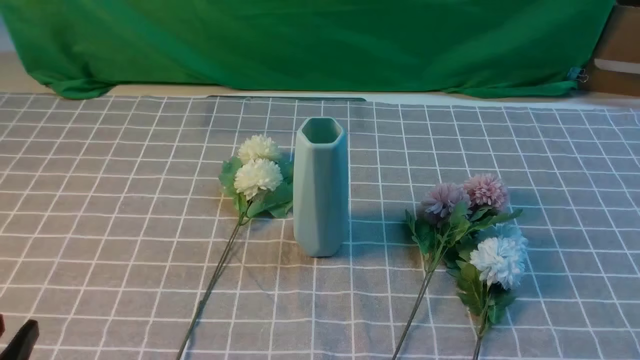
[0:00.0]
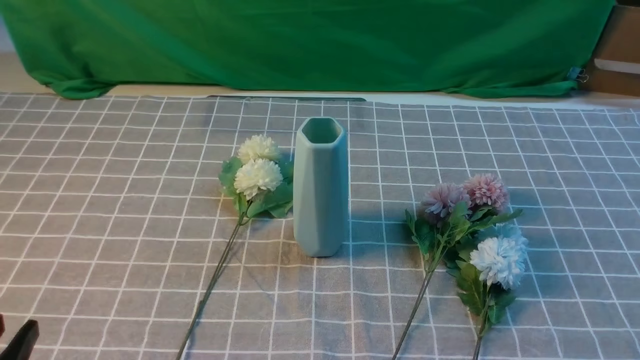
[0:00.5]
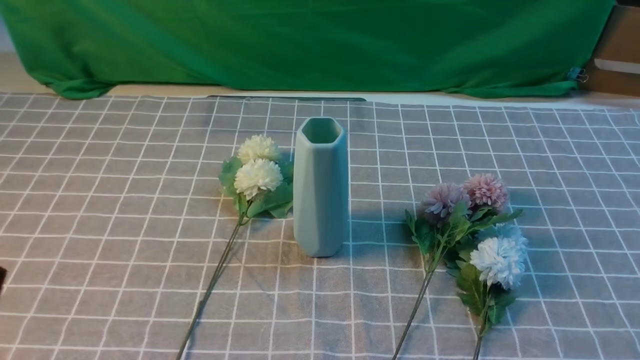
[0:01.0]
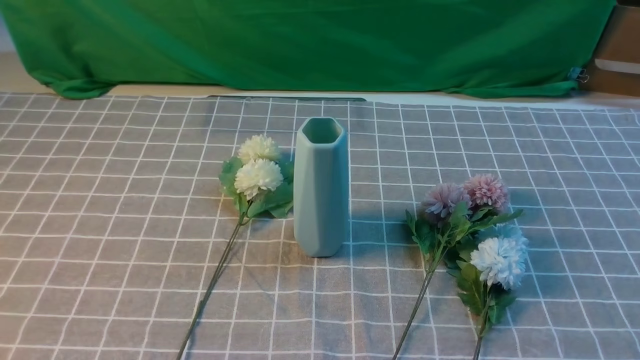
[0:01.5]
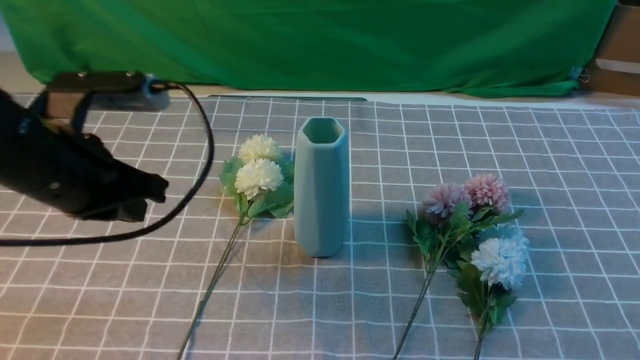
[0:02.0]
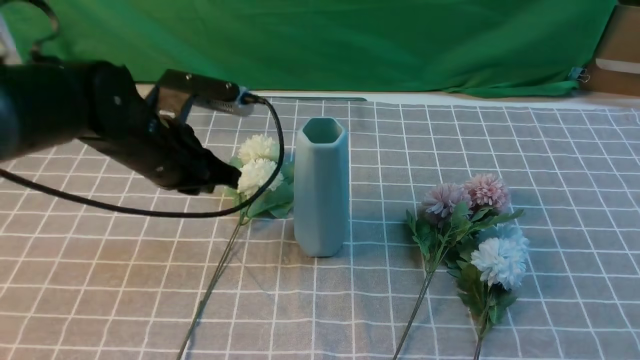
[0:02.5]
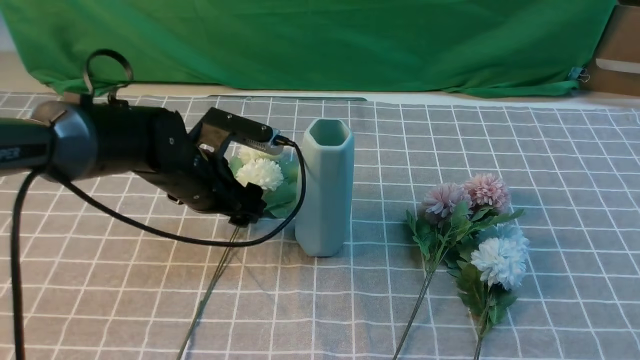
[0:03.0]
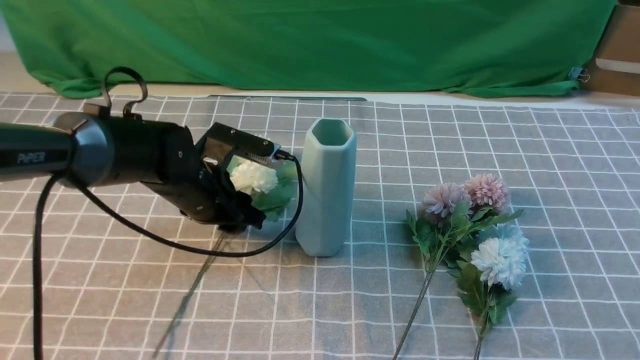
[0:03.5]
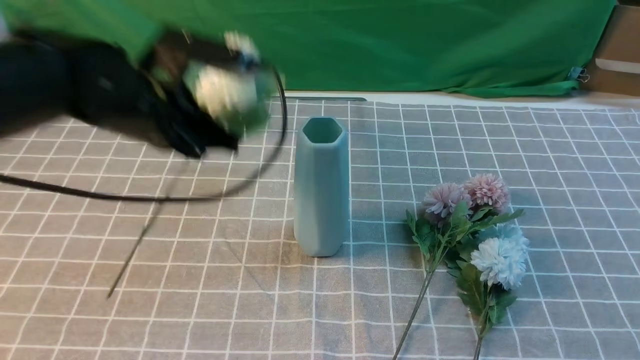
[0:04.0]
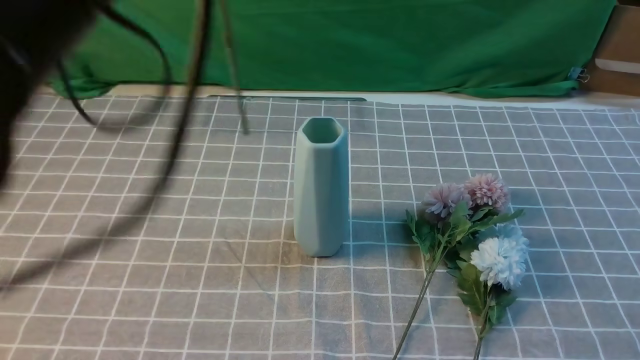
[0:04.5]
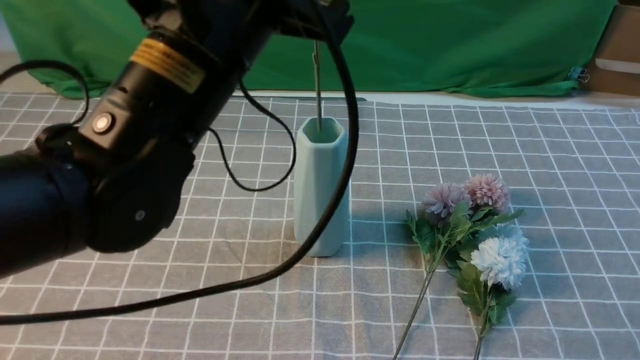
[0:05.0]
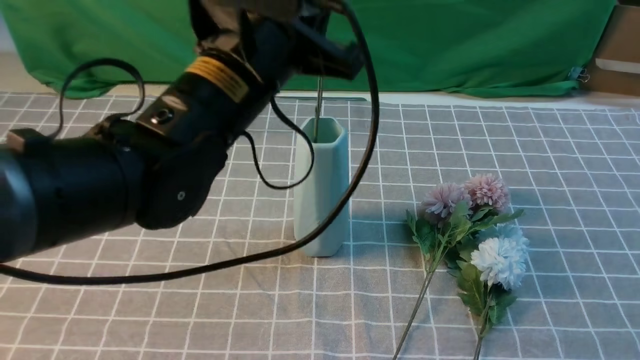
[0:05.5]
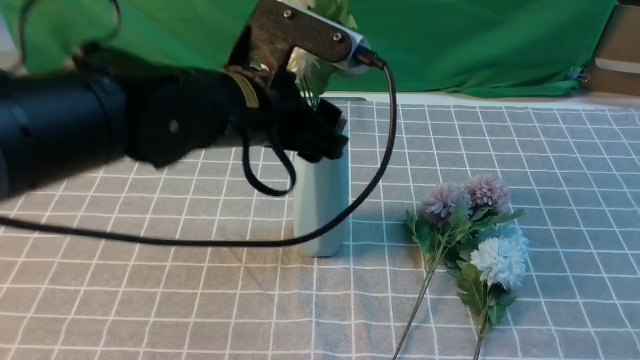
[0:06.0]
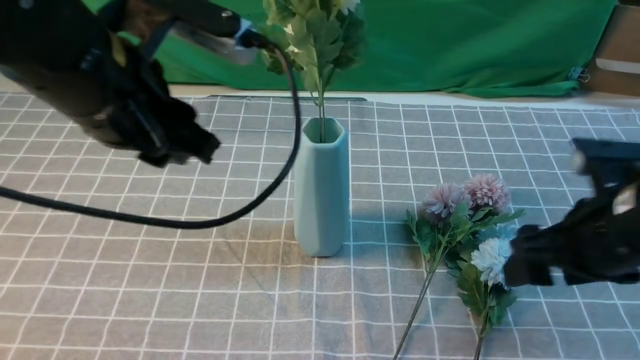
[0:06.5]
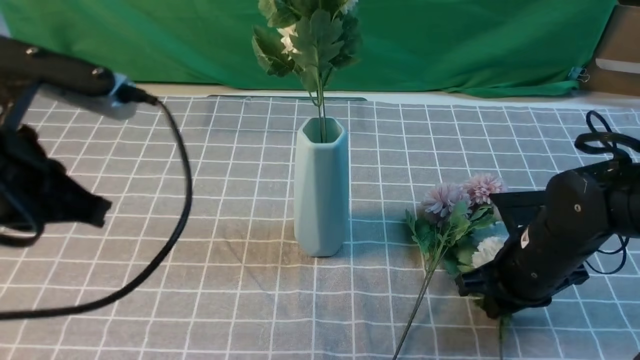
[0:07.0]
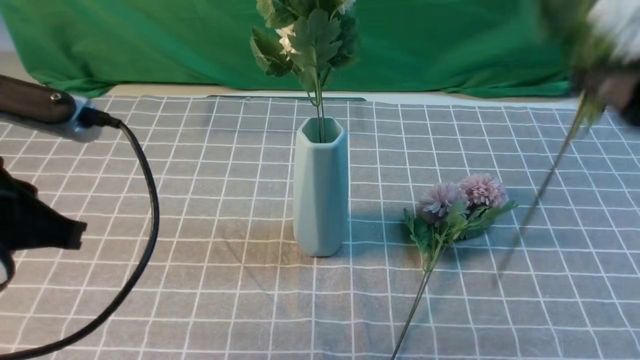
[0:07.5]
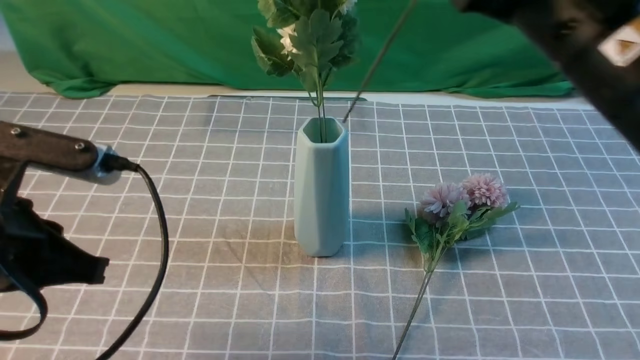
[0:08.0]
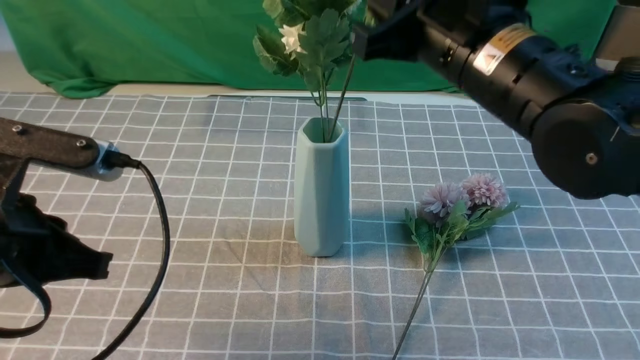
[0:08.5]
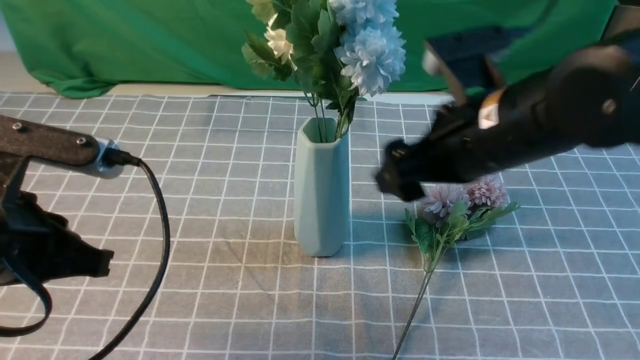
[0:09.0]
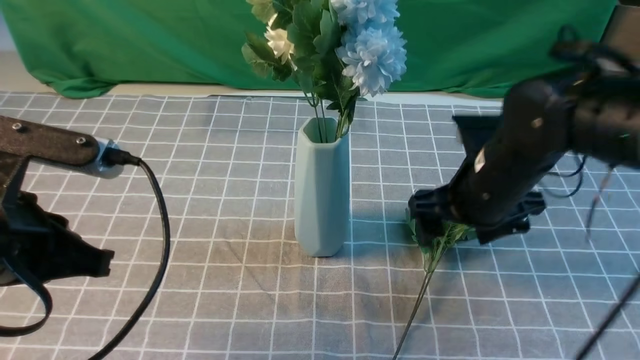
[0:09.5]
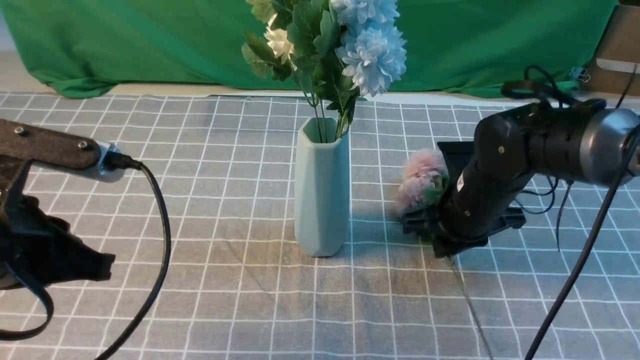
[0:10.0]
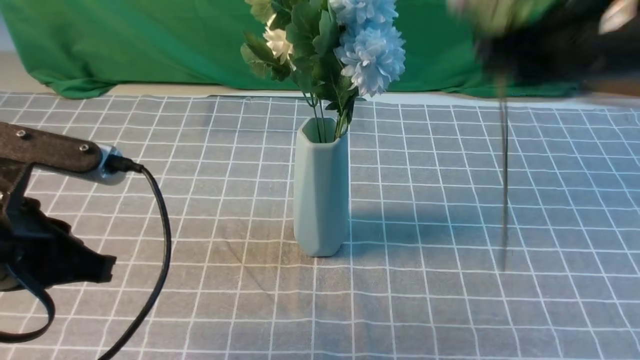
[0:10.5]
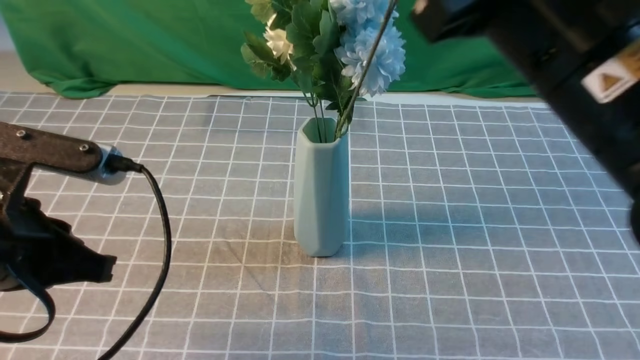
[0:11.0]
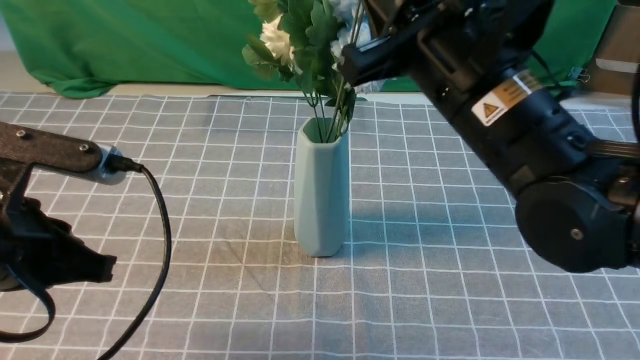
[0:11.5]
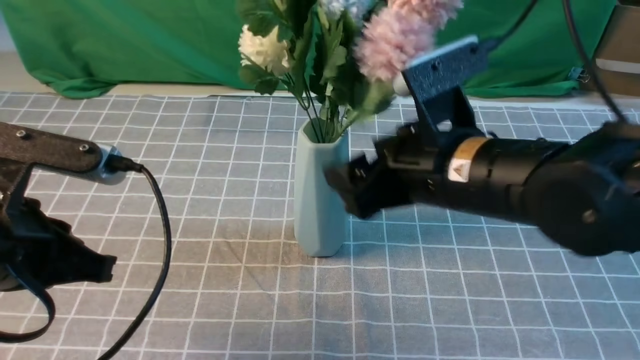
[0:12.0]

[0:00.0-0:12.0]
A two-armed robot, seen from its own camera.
Task of the whole recording: insert the flowers into the vase on the table with the grey tablecloth.
Step, 0:00.0 to 0:03.5: use the left arm to grab a bunch of fresh flowers.
Step, 0:04.0 to 0:06.0: use the left arm to insert the flowers into the vase.
Step, 0:06.5 to 0:07.0: use the right arm to grab a bunch of fresh flowers.
Step, 0:07.5 to 0:08.5: use the right arm to insert the flowers into the vase.
Step, 0:09.0 to 0:09.5: use the right arm to grab a bunch of fresh flowers.
Step, 0:10.5 to 0:12.0: use the right arm to insert the flowers into the vase.
0:00.0 to 0:02.0: The right gripper heads upward, covering some 10 cm. Meanwhile the left gripper shifts approximately 25 cm forward and upward, and closes up.
0:02.0 to 0:04.0: The left gripper shifts some 5 cm forward, goes downward and returns, about 15 cm each way, and opens and closes again. Meanwhile the right gripper moves upward, some 10 cm.
0:04.0 to 0:06.0: The left gripper shifts approximately 10 cm to the right, goes upward and returns, approximately 10 cm each way, and opens its fingers.
0:06.0 to 0:08.0: The right gripper travels to the left and forward by some 20 cm, reaches some 15 cm downward, then returns, and opens, then closes once more, while the left gripper is displaced to the left and backward by some 20 cm, and closes.
0:08.0 to 0:10.0: The right gripper shifts approximately 25 cm downward and forward, and opens, then closes once more.
0:10.0 to 0:12.0: The right gripper goes about 15 cm upward and backward, and opens up.

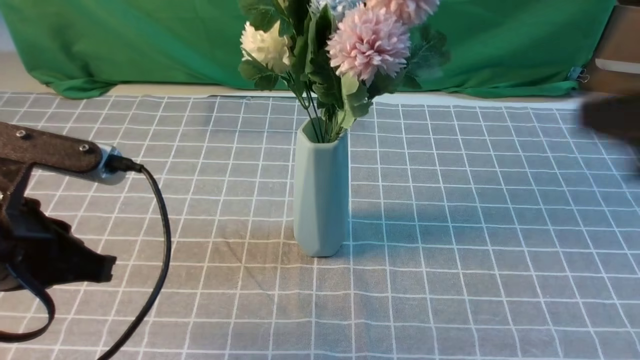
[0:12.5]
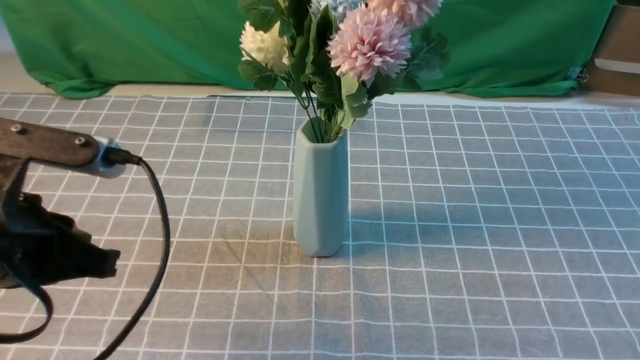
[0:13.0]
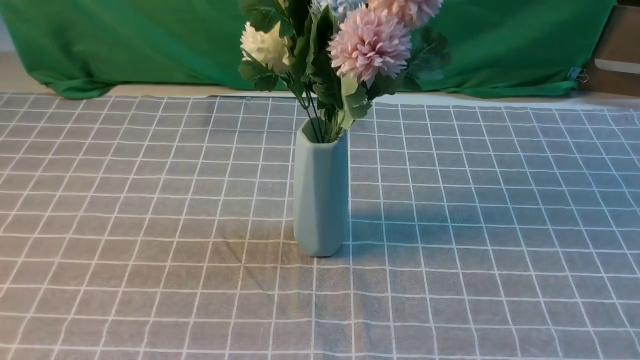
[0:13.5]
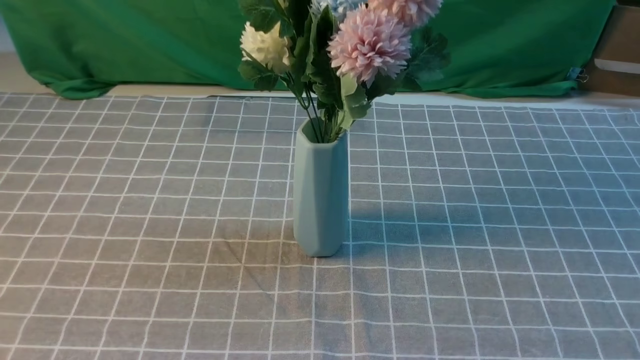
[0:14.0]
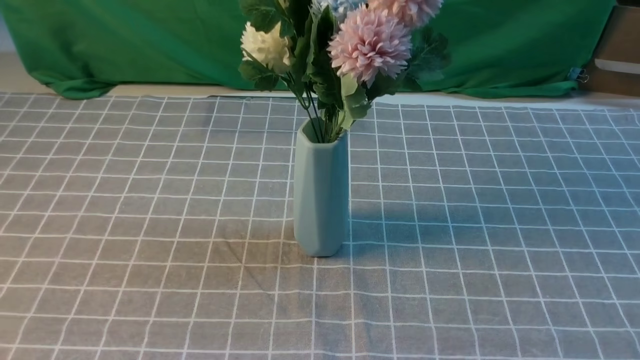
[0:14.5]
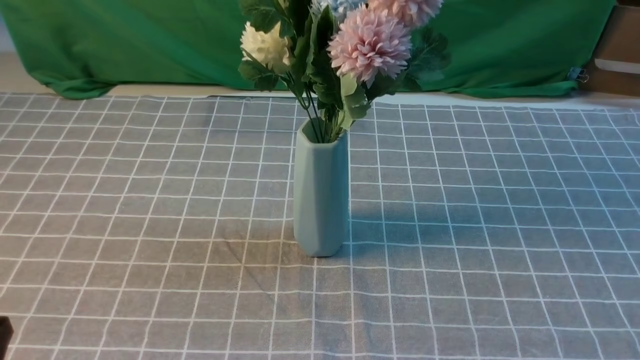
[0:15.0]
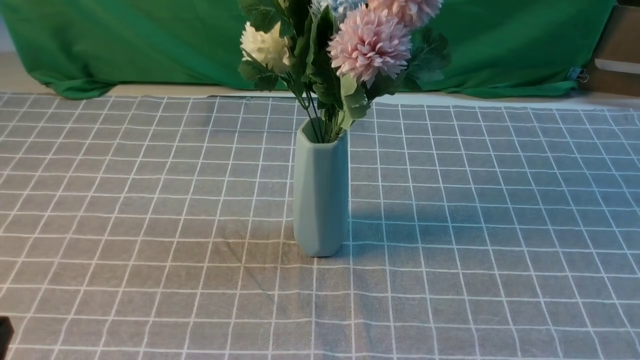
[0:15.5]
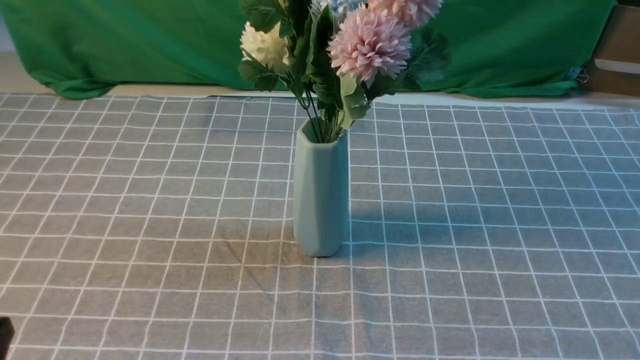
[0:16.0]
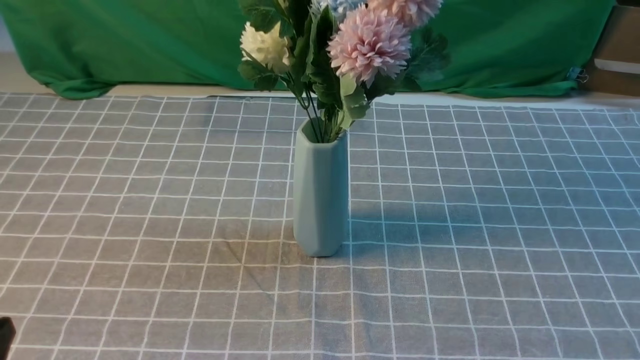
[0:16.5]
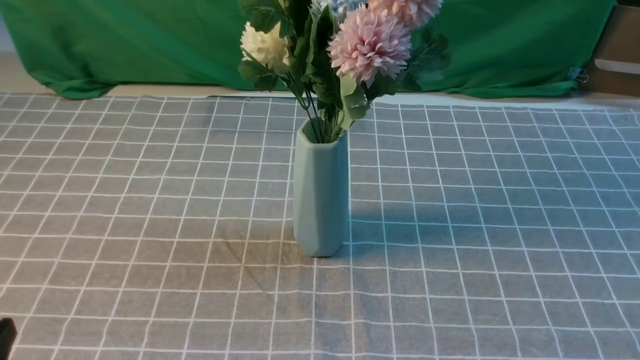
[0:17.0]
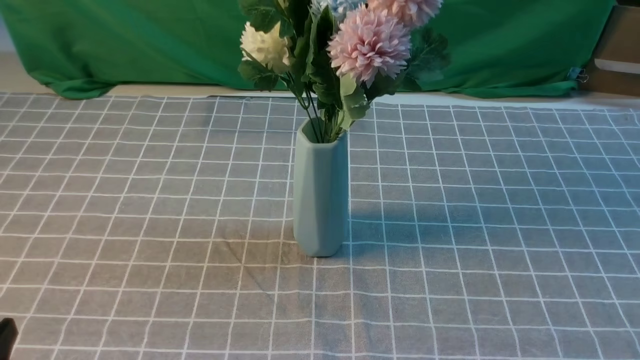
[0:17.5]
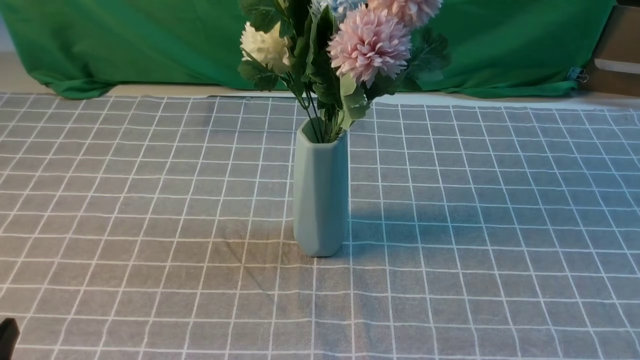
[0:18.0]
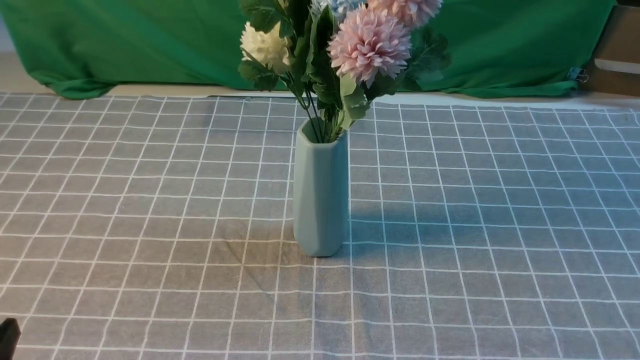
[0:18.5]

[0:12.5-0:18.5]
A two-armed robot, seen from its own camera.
Task of the whole recording: insert the flowers into the vase on the table with the grey tablecloth.
0:12.5 to 0:14.5: The right gripper heads backward, to the right and downward, covering roughly 10 cm. The left gripper heads backward, covering some 15 cm.
